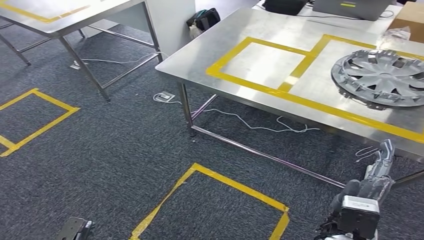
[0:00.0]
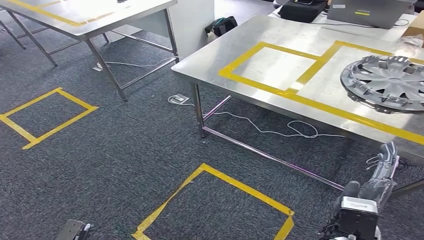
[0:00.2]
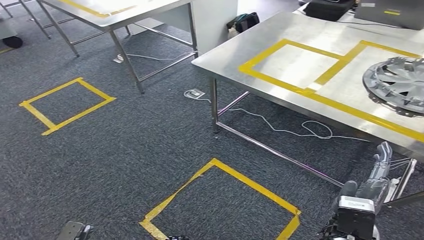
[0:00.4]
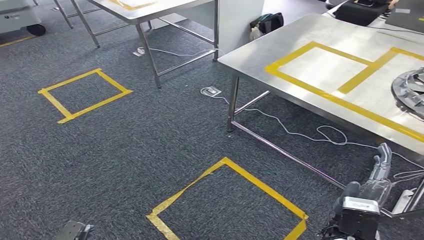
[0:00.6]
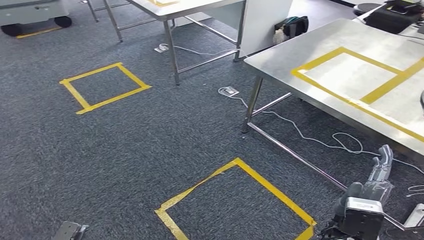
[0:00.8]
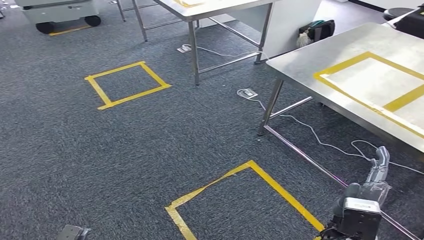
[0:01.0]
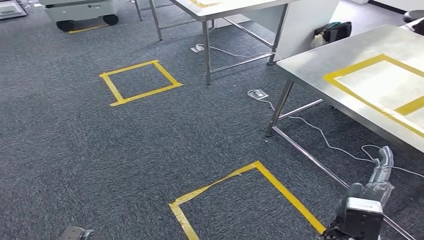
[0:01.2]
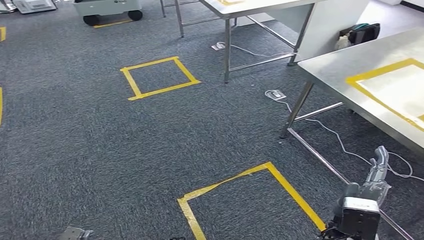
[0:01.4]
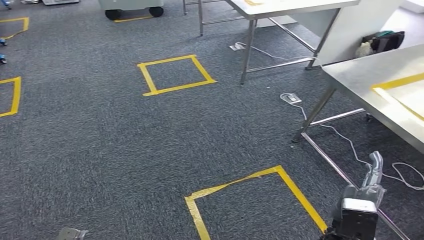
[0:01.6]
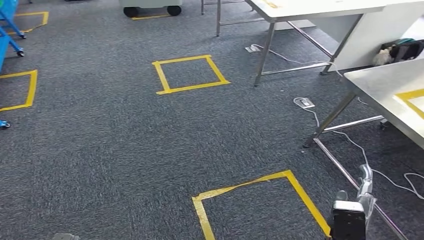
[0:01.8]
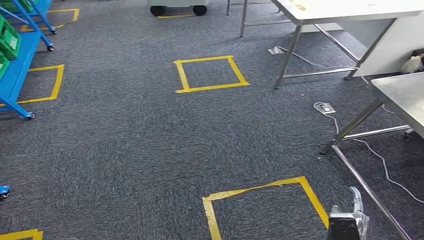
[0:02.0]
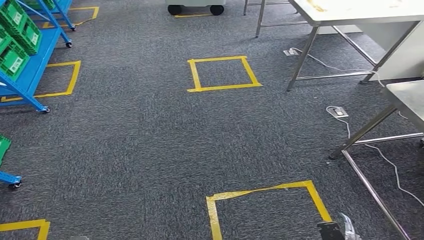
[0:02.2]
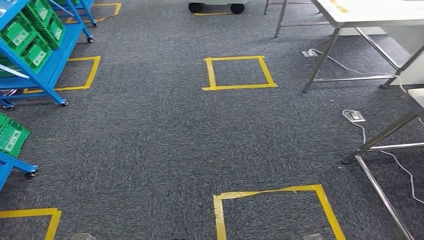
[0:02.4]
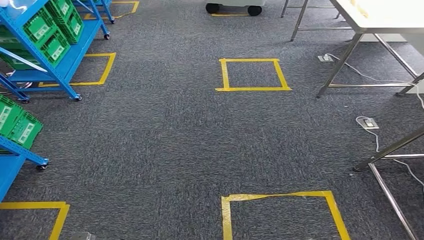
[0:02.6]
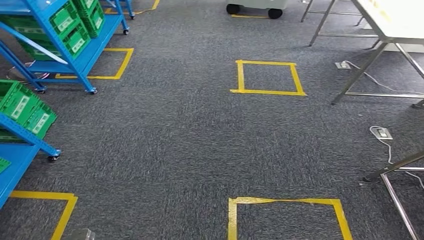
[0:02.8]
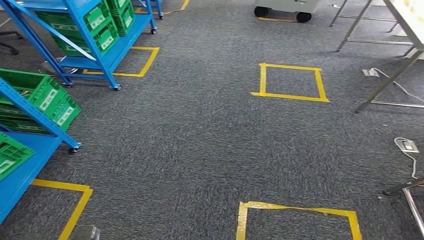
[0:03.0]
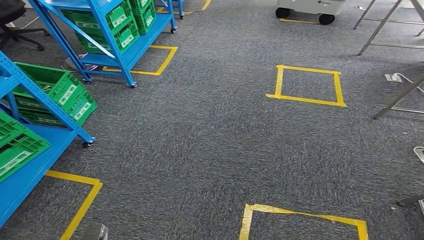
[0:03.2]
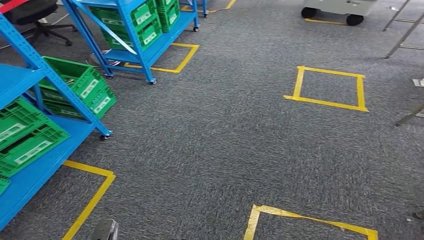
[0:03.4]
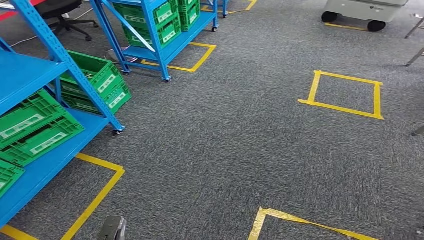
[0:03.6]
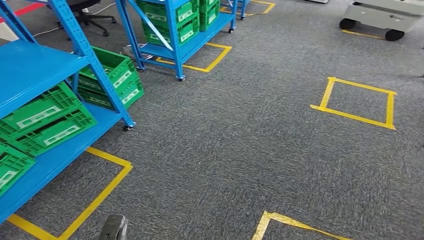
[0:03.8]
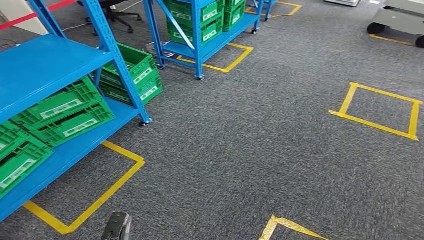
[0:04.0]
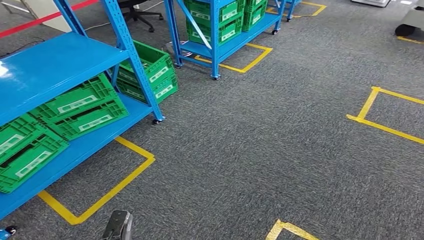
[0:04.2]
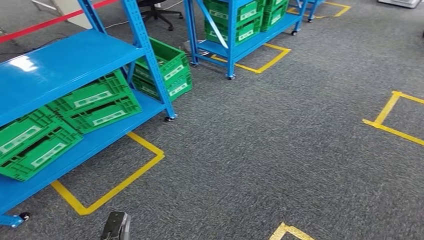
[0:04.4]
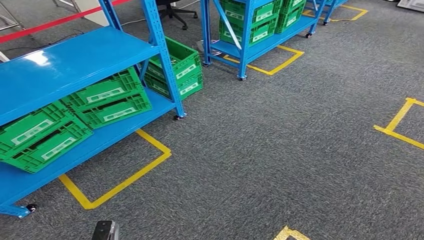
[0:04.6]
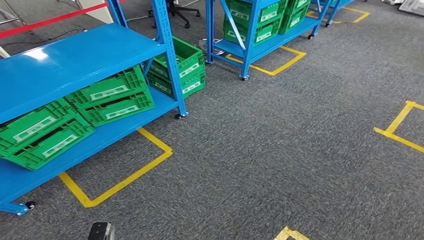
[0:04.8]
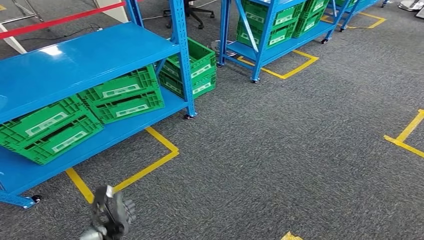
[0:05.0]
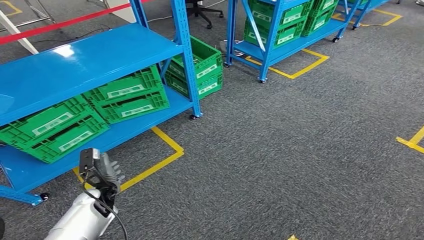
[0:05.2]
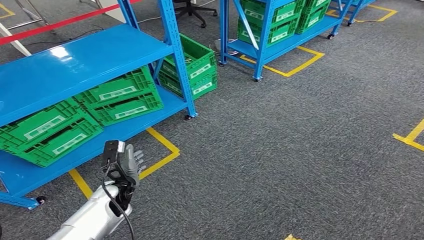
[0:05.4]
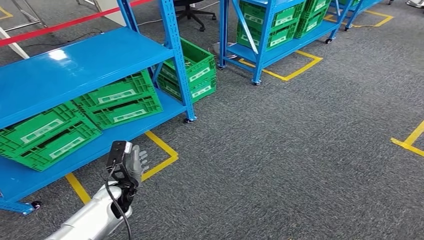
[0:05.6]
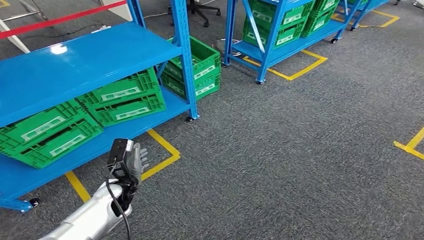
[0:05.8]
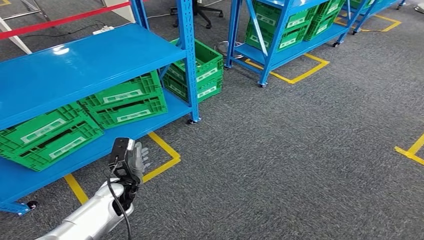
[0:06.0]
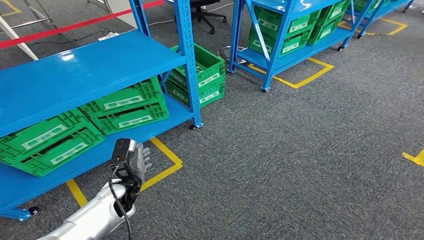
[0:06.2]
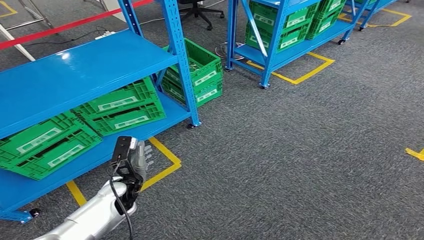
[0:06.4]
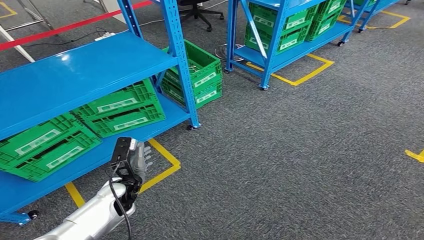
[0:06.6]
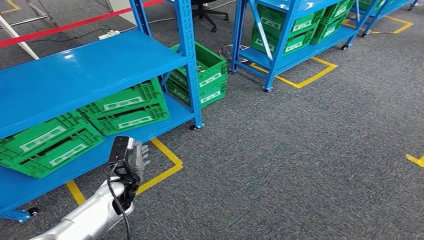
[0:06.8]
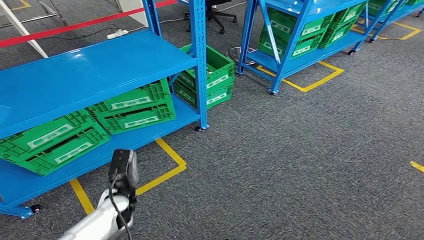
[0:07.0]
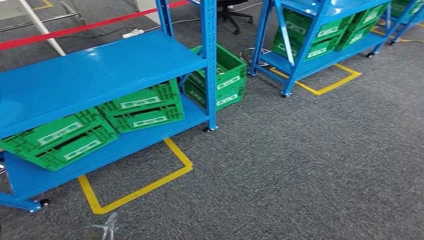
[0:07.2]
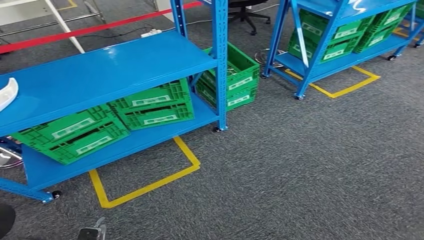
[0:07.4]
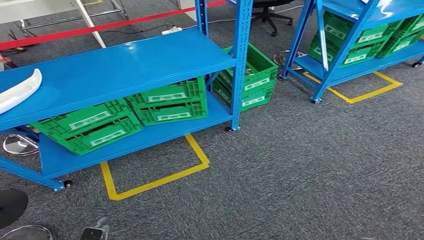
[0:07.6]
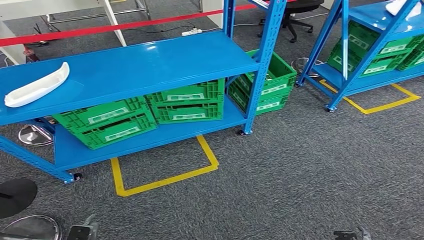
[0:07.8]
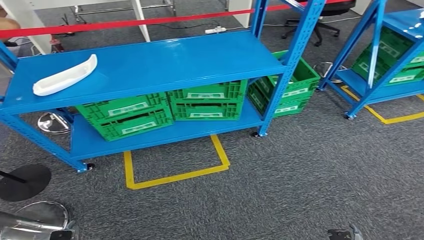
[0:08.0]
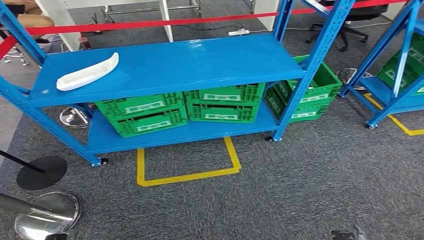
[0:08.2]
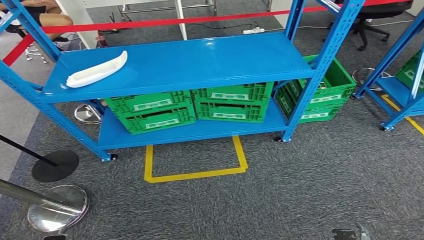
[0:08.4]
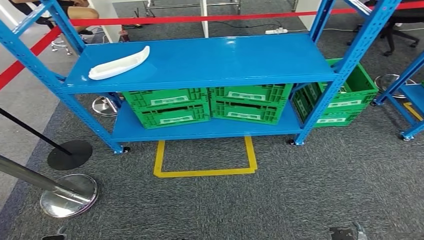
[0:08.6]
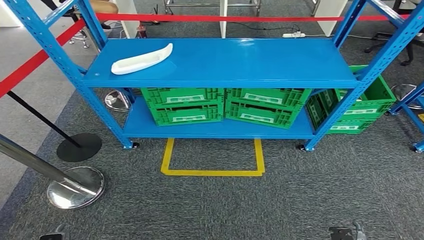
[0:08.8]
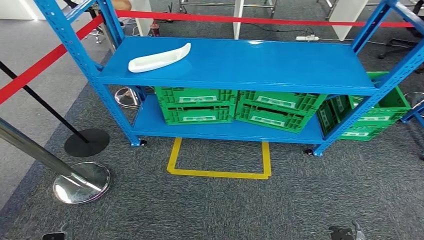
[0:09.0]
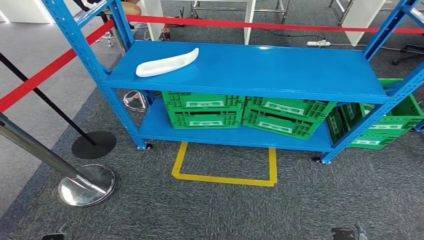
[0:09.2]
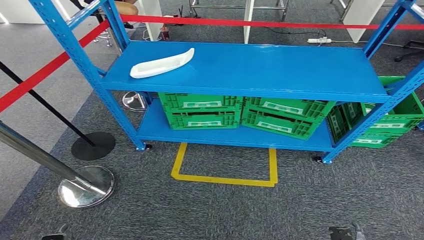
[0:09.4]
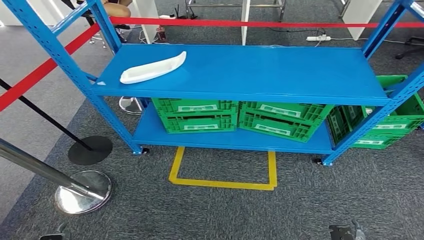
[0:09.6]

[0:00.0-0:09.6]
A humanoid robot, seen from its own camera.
Step, 0:00.0 to 0:09.6: Return to the initial position at the workbench.

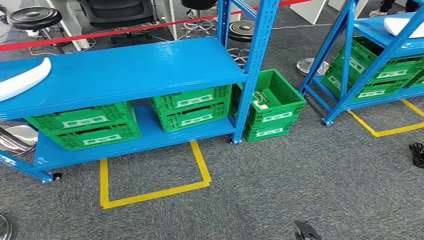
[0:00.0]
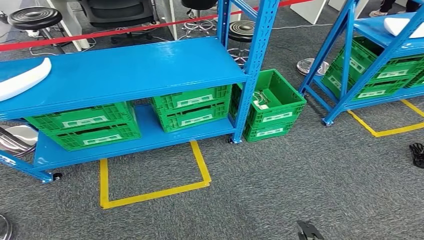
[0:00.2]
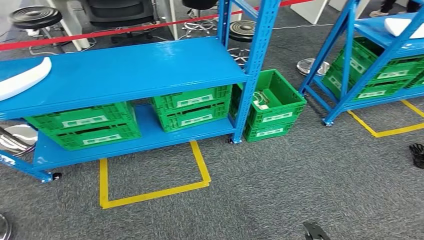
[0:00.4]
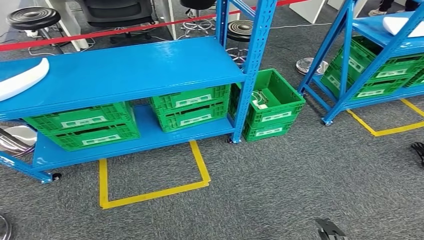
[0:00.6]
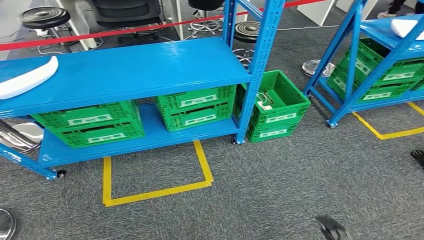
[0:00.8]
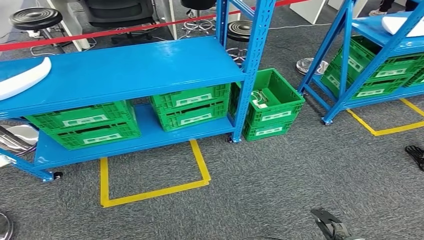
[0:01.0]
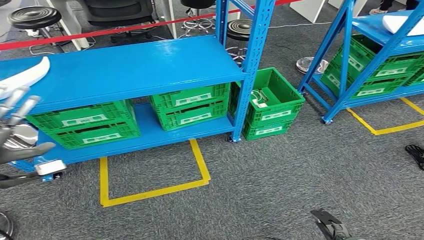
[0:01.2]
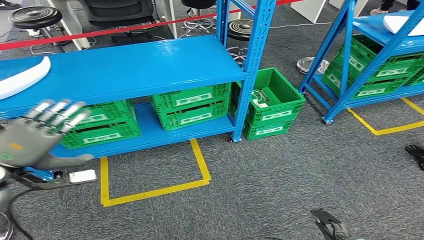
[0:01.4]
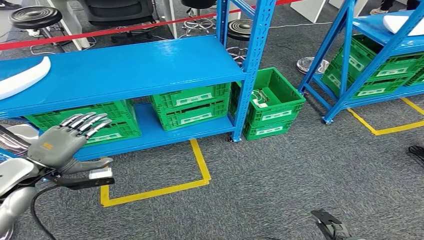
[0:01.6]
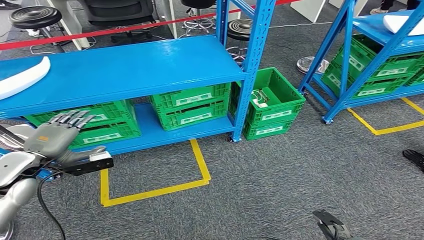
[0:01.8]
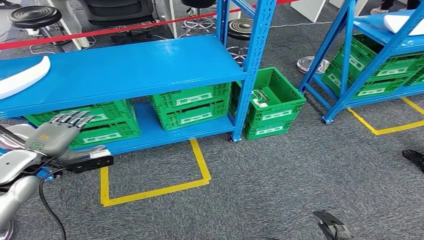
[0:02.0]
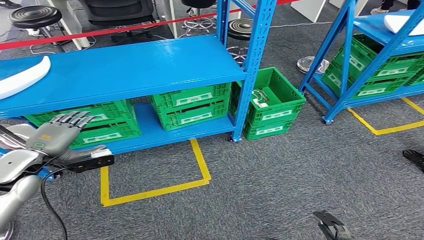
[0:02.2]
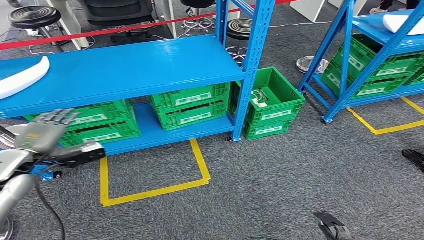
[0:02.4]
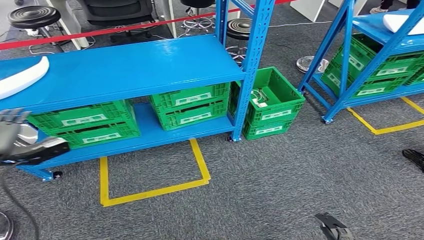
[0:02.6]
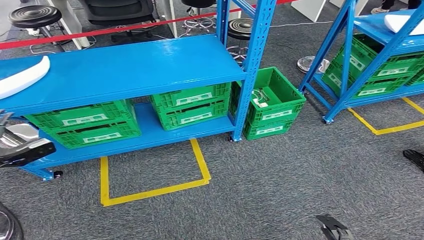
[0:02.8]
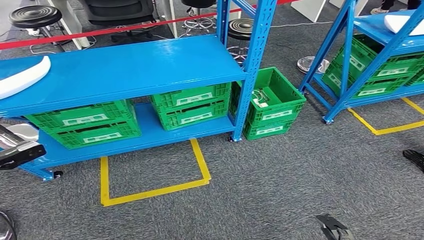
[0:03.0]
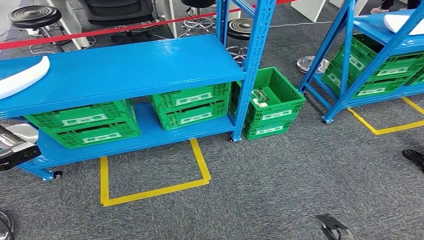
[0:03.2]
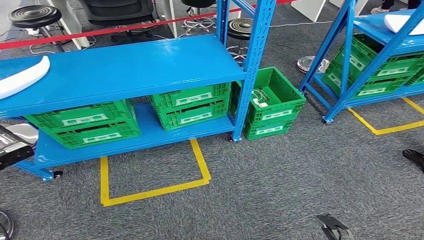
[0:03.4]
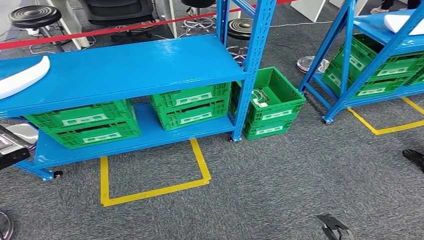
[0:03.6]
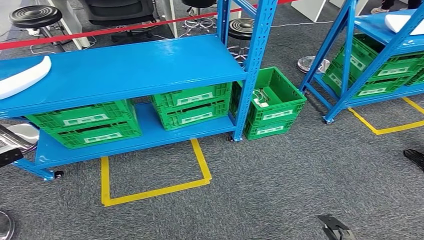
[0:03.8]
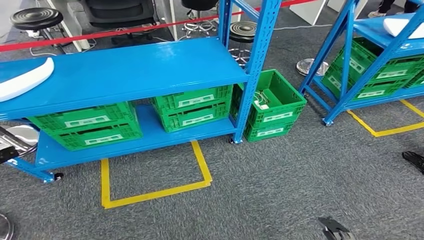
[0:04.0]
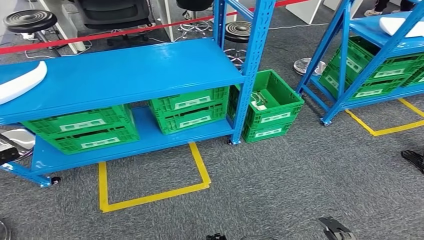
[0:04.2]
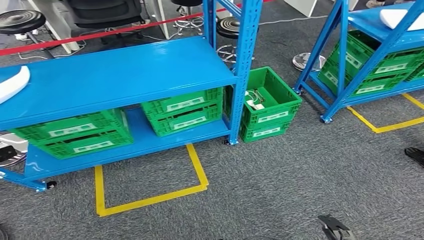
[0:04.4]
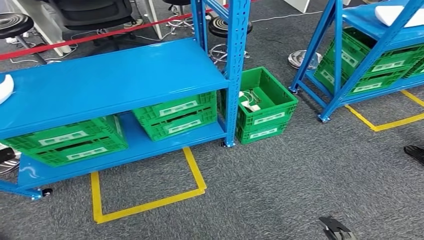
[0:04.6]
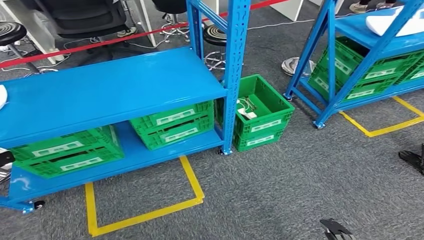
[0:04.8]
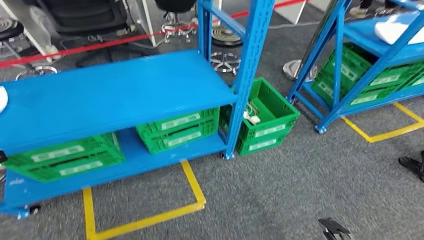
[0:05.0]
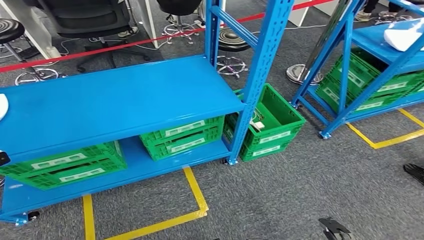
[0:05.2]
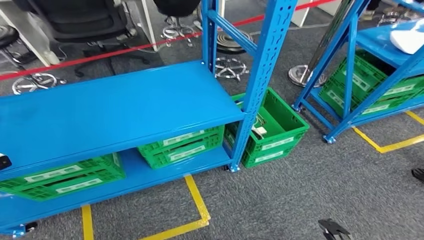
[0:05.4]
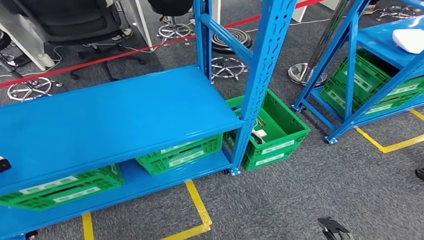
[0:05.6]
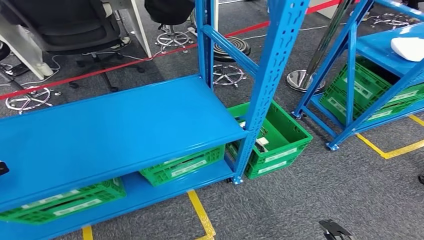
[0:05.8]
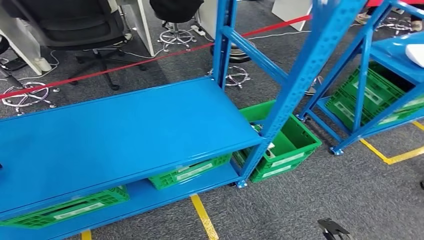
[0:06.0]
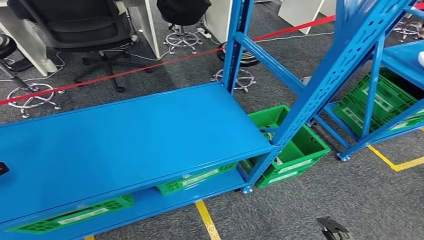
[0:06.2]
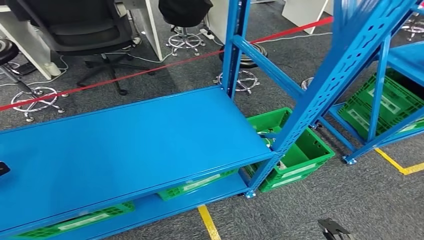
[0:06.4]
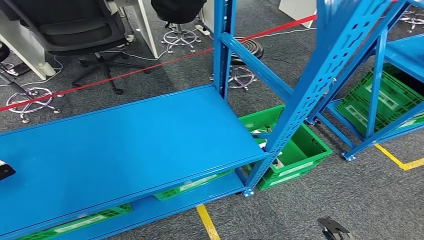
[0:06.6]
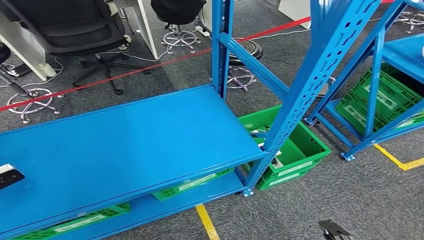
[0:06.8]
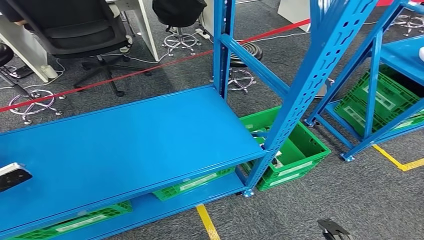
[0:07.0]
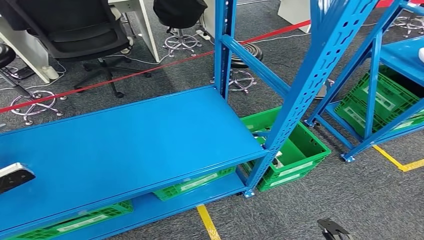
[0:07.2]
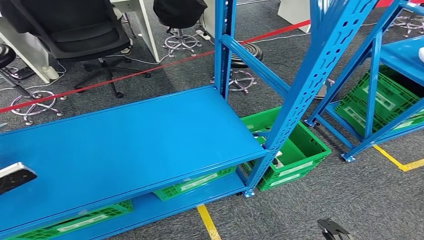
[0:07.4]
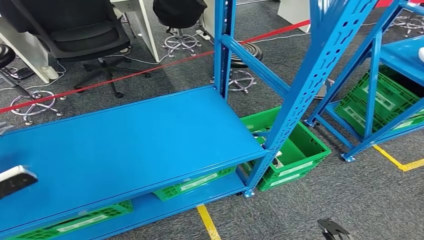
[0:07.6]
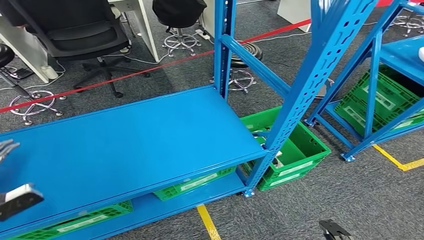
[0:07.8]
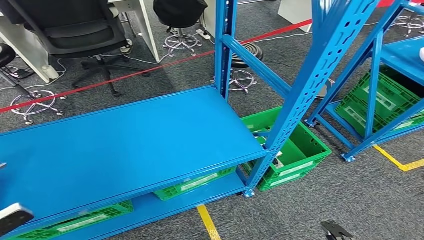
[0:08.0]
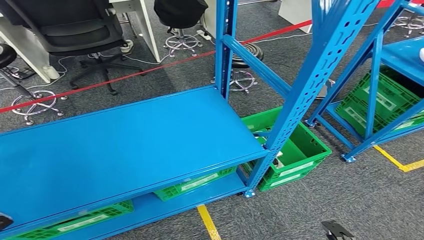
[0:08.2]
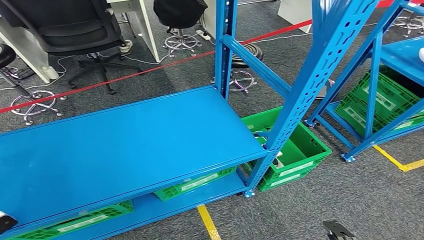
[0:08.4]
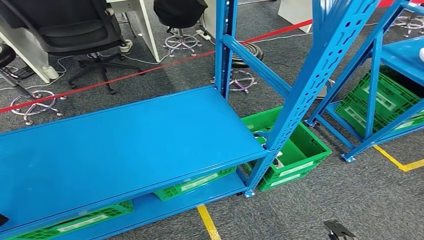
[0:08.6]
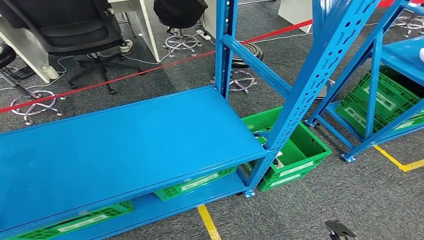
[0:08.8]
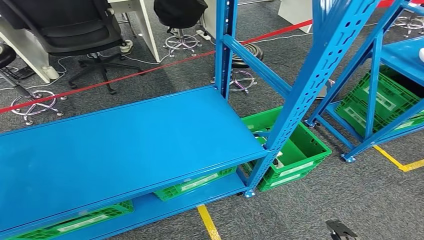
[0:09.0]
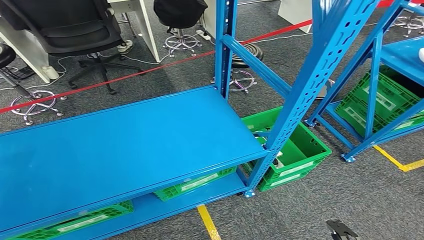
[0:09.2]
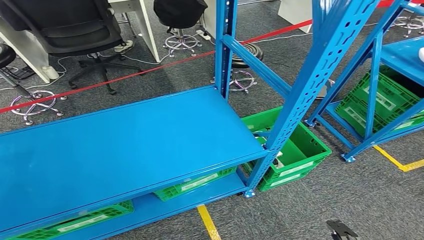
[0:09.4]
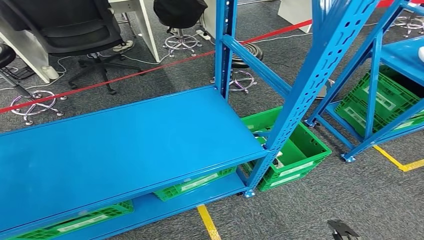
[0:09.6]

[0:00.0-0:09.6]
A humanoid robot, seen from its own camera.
0:01.6 to 0:03.2: The left hand moves to the left, about 15 cm.
0:08.0 to 0:09.6: The left hand moves to the left, about 10 cm.
